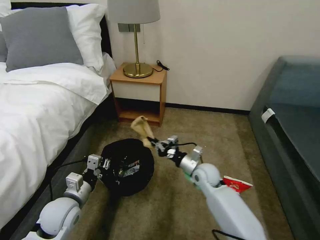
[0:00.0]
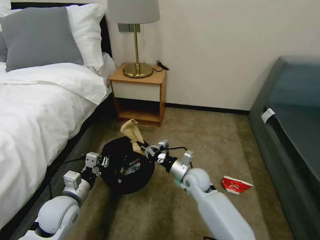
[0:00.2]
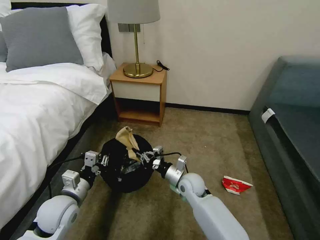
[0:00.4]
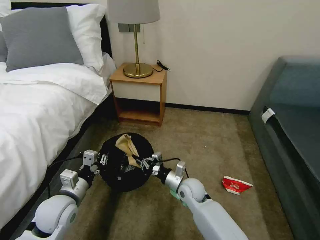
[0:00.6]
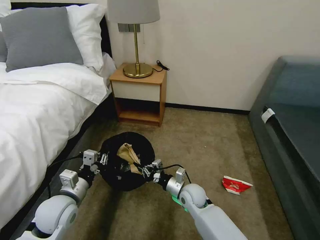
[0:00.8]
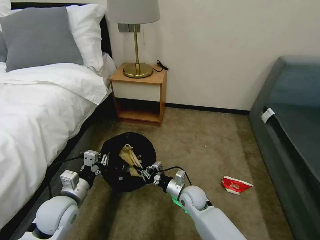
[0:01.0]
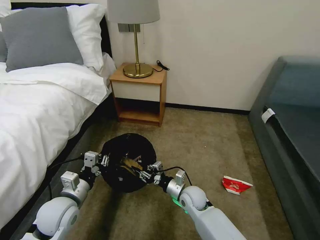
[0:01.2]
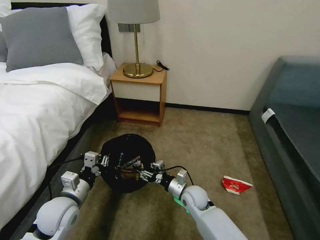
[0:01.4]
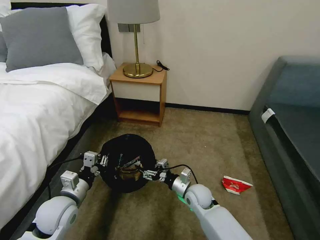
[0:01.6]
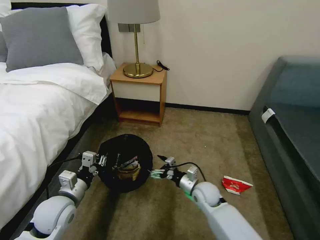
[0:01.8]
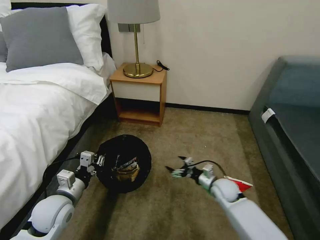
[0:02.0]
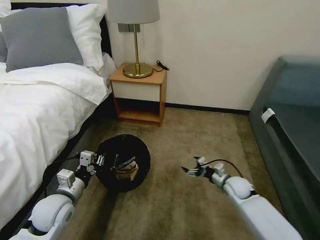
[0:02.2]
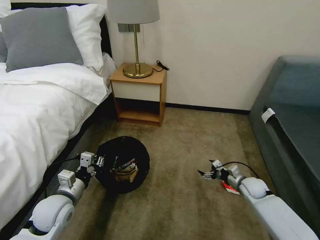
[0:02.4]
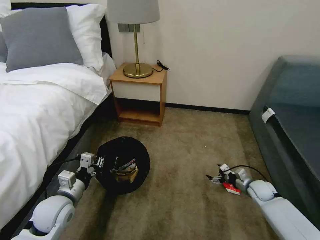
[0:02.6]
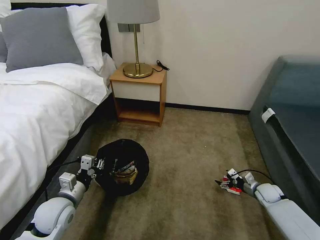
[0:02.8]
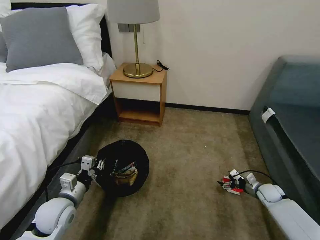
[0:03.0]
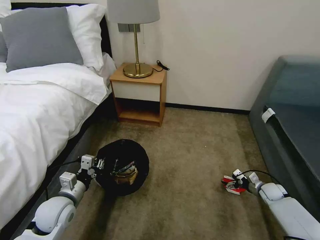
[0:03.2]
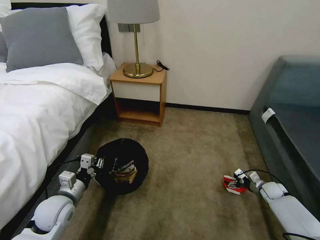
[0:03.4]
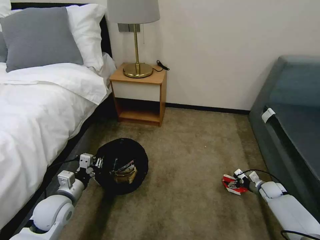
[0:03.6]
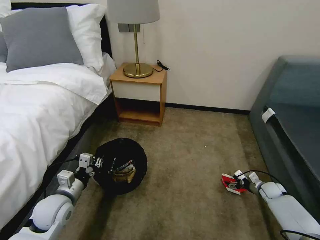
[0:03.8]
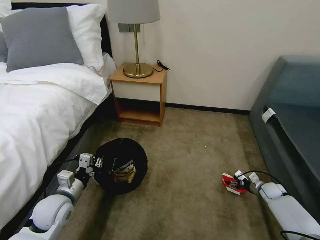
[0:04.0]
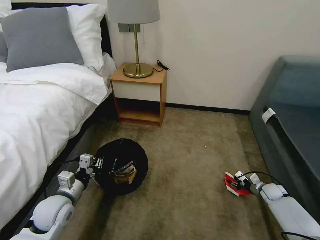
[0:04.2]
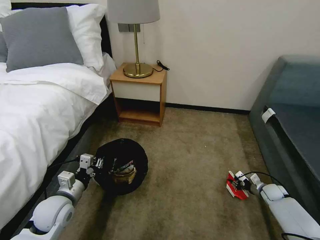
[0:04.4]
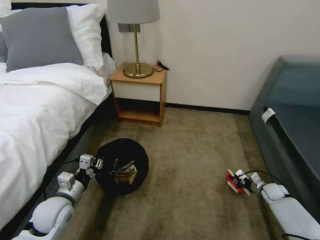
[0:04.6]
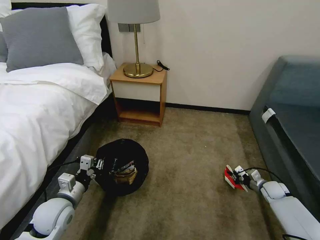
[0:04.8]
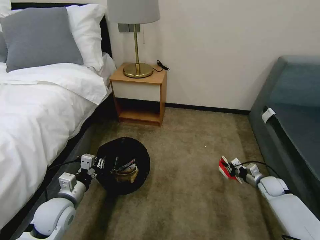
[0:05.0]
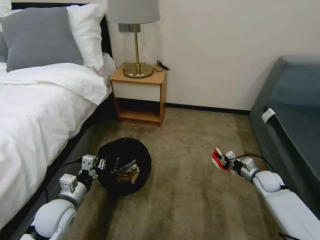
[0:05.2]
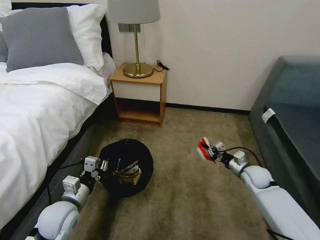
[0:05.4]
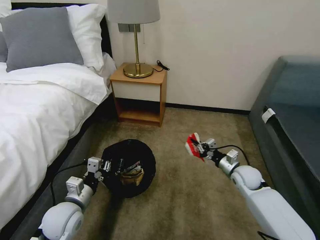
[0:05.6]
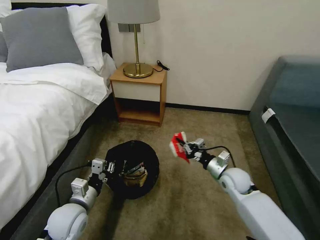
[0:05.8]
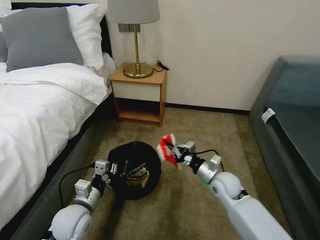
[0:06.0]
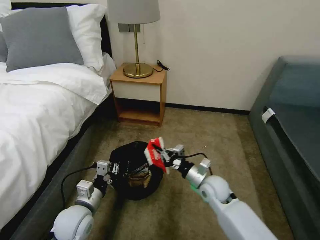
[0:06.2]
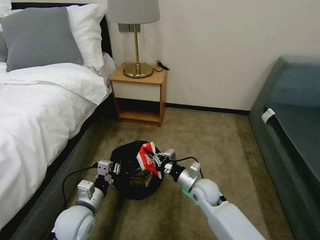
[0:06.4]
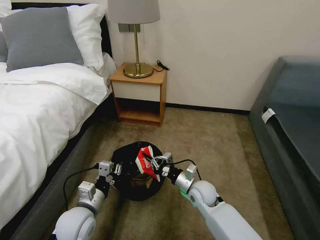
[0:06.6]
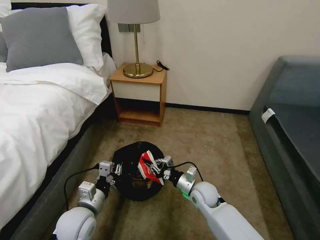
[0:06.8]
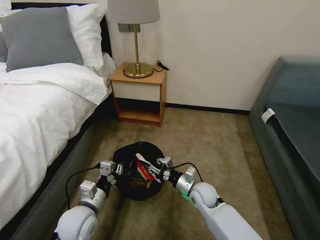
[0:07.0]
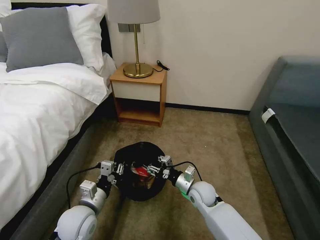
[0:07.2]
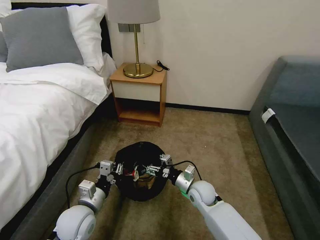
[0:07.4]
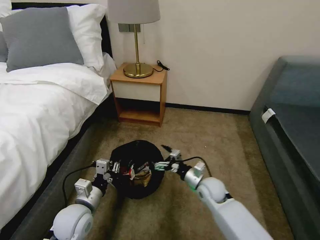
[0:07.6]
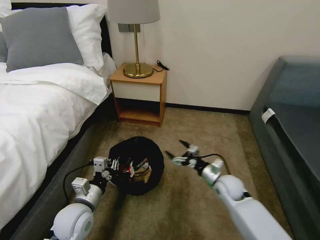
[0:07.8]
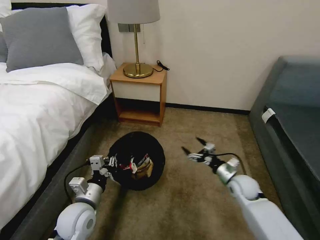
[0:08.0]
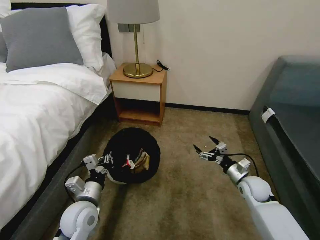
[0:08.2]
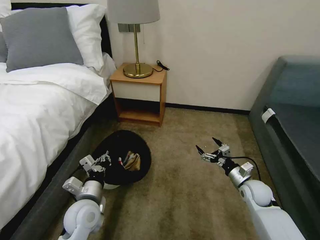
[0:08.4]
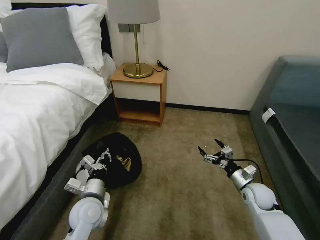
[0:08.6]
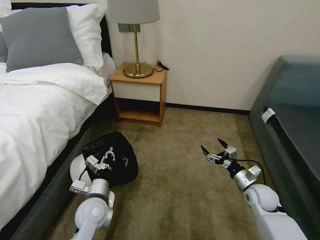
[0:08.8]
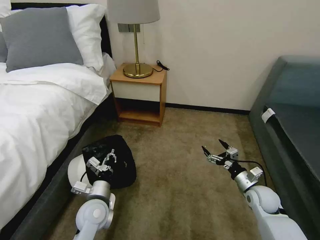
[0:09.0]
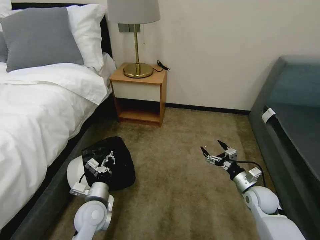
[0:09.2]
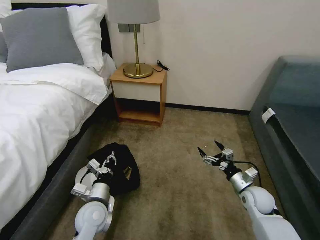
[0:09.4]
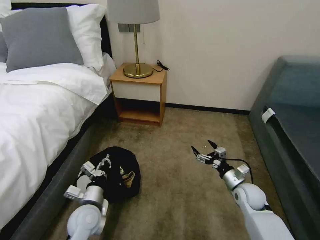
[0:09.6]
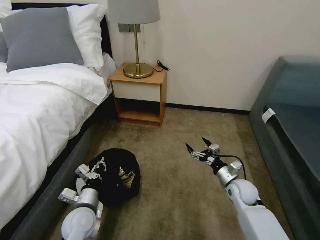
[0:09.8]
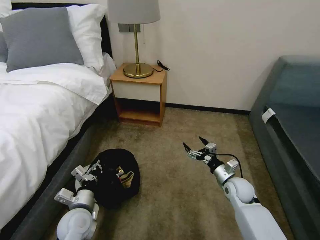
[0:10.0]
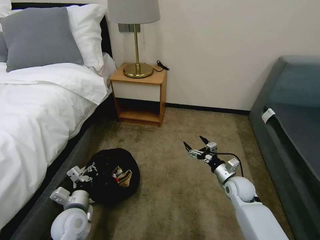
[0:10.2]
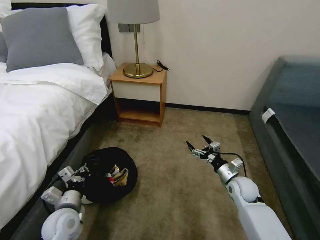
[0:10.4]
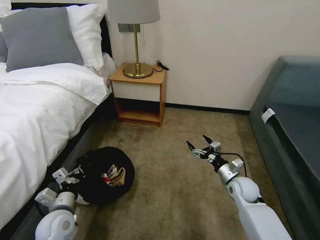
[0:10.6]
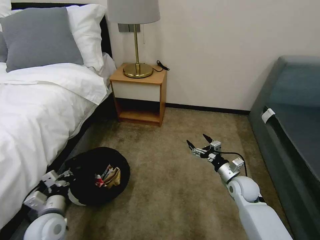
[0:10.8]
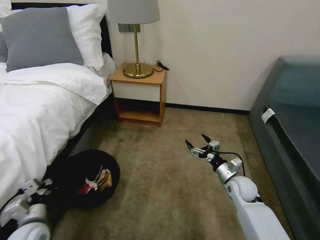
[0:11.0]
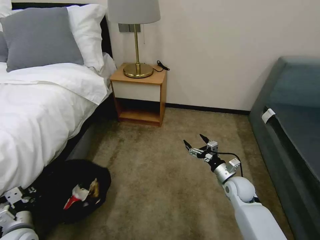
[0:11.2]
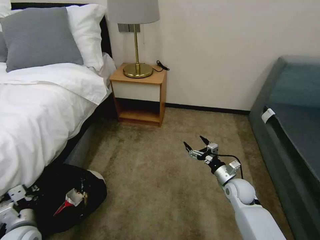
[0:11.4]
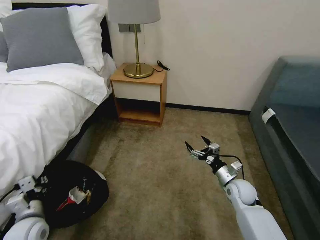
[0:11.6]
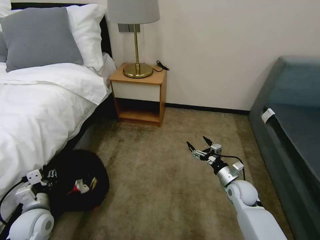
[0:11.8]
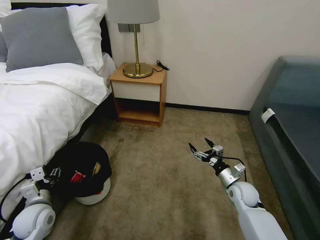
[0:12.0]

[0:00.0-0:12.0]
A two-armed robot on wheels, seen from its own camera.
Task of the whole recording: Pick up the trash bin, then pick up the garbage on the floor and place it into the trash bin.
0:00.0 to 0:01.6: The right gripper moves downward and backward, some 10 cm, and opens.
0:01.6 to 0:03.0: The right gripper moves to the right, roughly 35 cm.
0:03.0 to 0:04.4: The right gripper closes up.
0:04.4 to 0:06.0: The left gripper is displaced to the right by about 5 cm. Meanwhile the right gripper moves to the left and upward, roughly 30 cm.
0:06.0 to 0:07.6: The right gripper opens up.
0:07.6 to 0:09.0: The right gripper moves to the right, about 20 cm; the left gripper shifts by roughly 5 cm.
0:09.0 to 0:10.4: The left gripper travels to the left by about 10 cm. Meanwhile the right gripper travels to the left by roughly 5 cm.
0:10.4 to 0:12.0: The left gripper moves to the left, roughly 10 cm, and opens up.

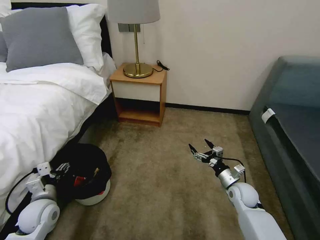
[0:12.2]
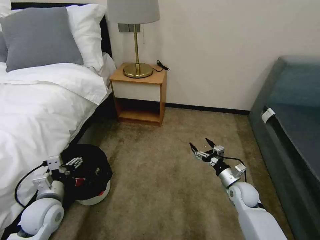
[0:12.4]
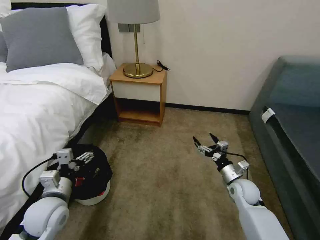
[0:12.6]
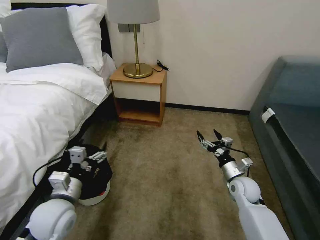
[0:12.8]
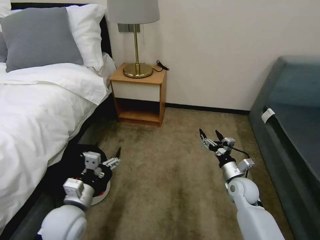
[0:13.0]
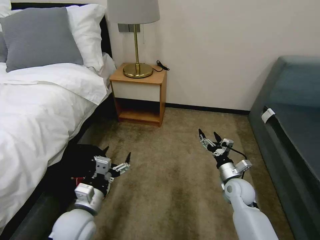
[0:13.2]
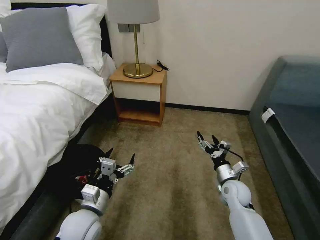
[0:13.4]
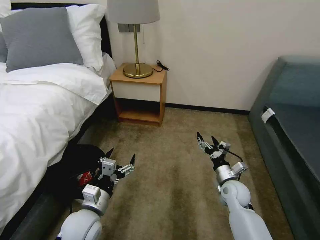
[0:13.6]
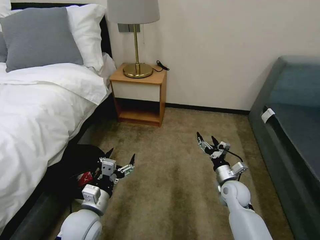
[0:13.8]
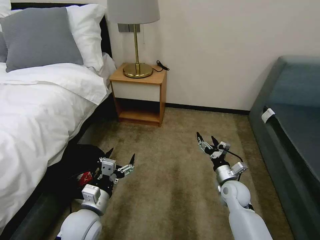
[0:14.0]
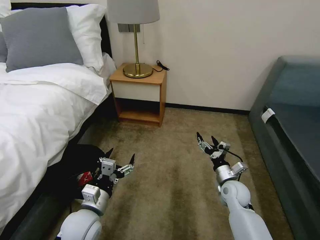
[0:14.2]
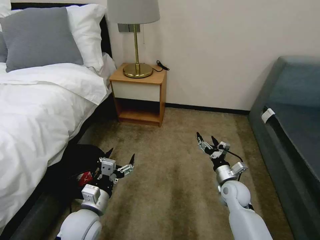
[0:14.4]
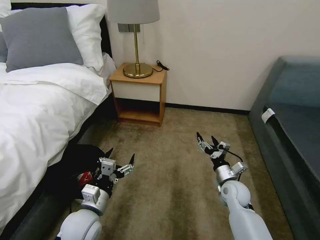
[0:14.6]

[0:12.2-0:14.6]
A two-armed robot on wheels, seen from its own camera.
Task of the whole recording: Pick up the trash bin, then pick up the garbage on the floor and place it into the trash bin.
0:12.2 to 0:13.4: The left gripper travels to the right by some 15 cm.
0:13.4 to 0:14.6: Neither gripper changes place.
